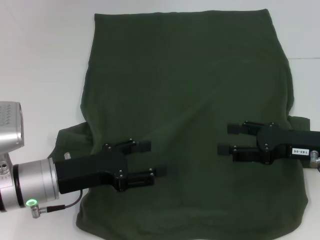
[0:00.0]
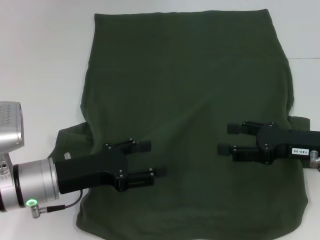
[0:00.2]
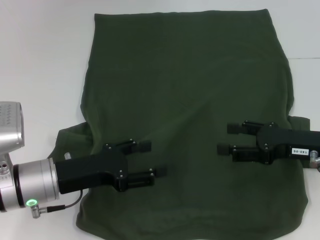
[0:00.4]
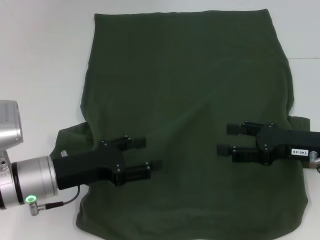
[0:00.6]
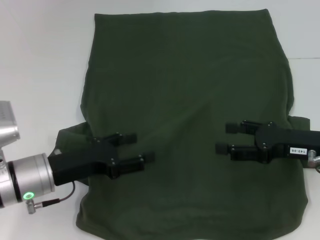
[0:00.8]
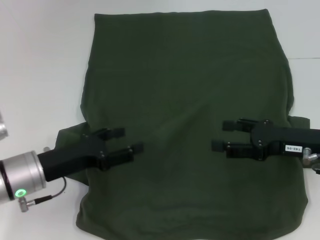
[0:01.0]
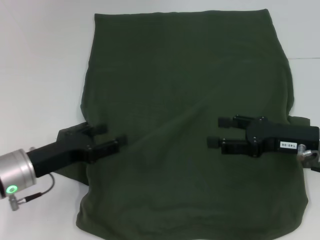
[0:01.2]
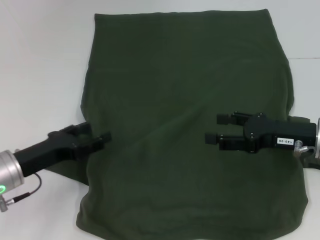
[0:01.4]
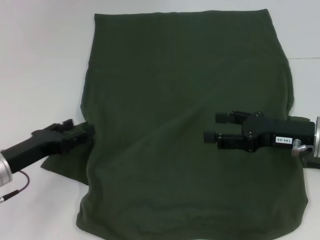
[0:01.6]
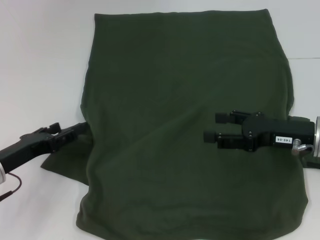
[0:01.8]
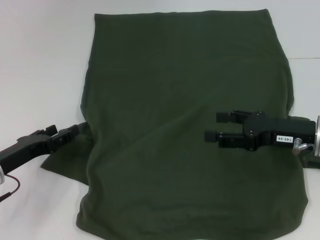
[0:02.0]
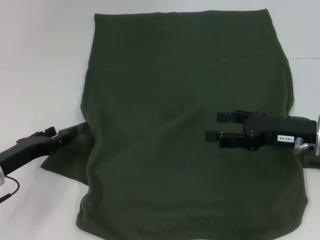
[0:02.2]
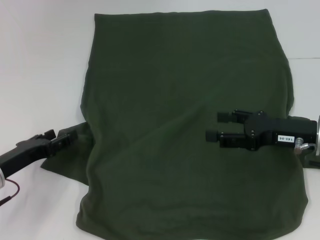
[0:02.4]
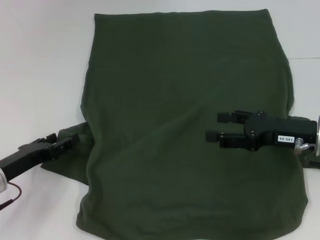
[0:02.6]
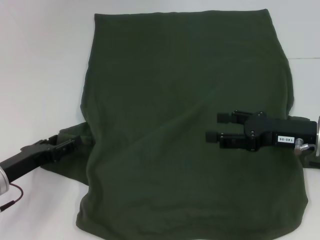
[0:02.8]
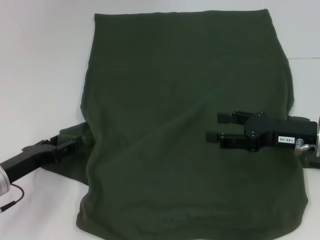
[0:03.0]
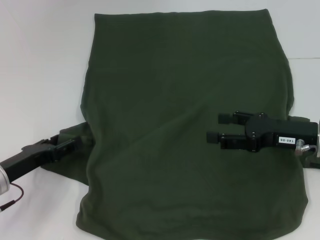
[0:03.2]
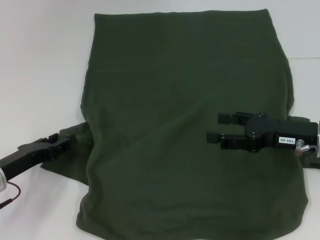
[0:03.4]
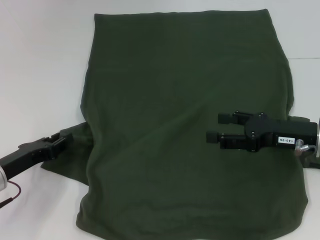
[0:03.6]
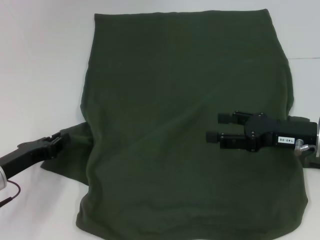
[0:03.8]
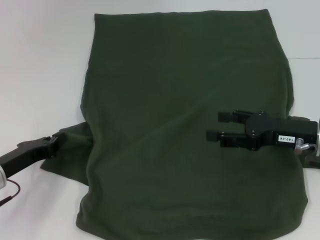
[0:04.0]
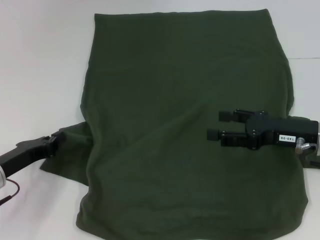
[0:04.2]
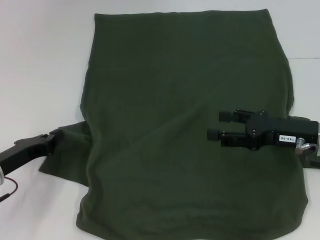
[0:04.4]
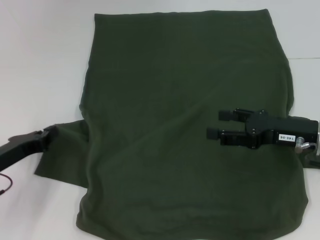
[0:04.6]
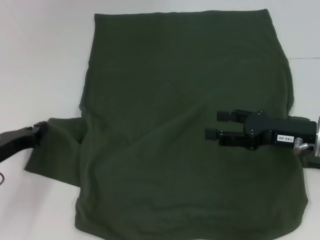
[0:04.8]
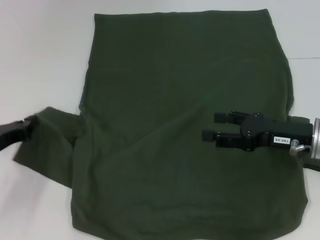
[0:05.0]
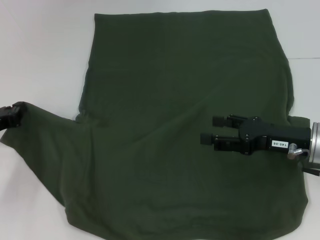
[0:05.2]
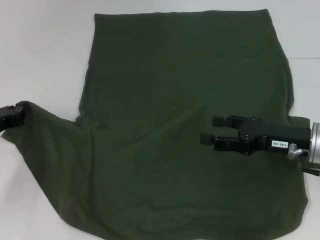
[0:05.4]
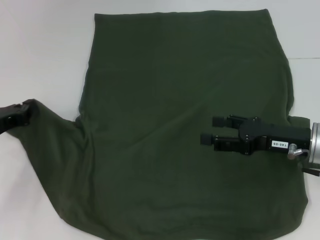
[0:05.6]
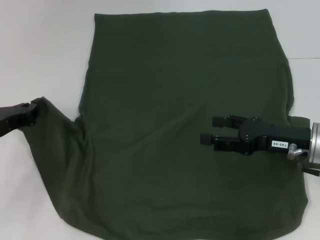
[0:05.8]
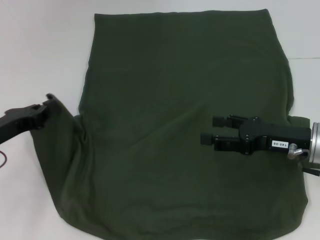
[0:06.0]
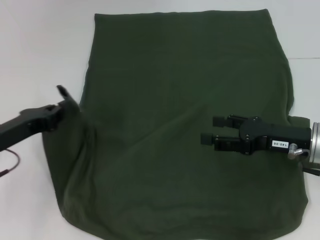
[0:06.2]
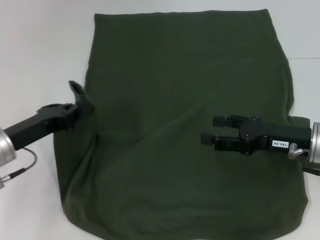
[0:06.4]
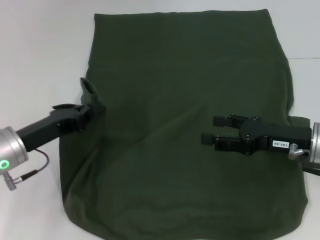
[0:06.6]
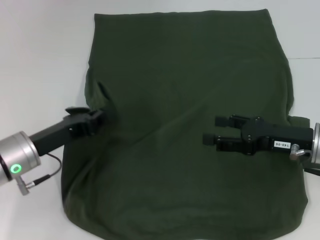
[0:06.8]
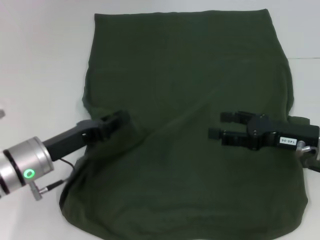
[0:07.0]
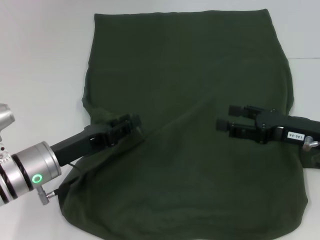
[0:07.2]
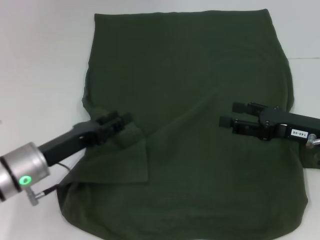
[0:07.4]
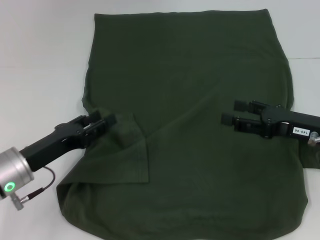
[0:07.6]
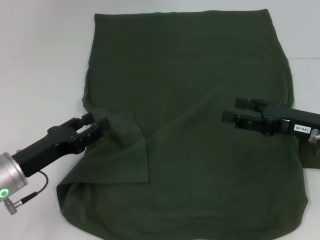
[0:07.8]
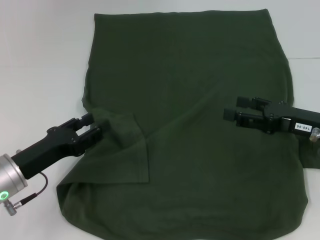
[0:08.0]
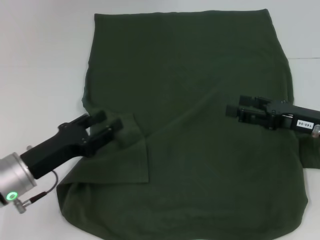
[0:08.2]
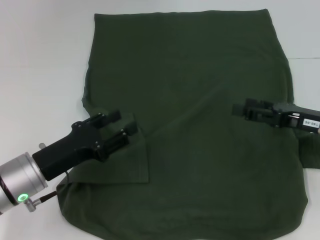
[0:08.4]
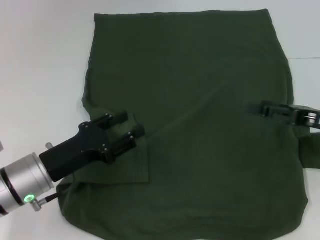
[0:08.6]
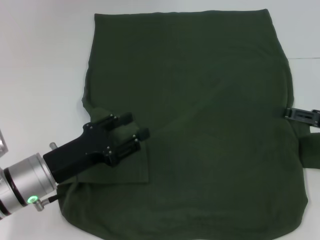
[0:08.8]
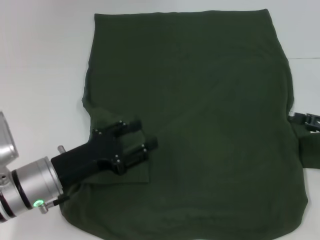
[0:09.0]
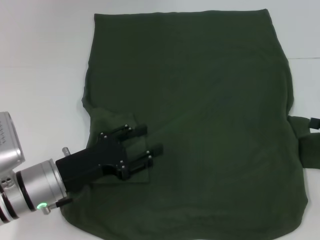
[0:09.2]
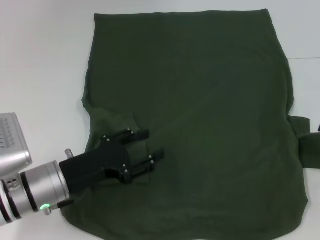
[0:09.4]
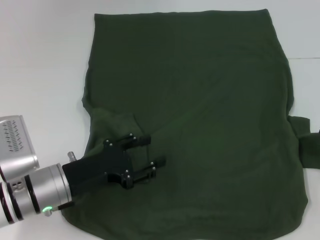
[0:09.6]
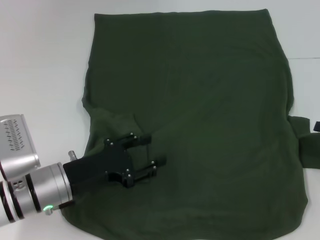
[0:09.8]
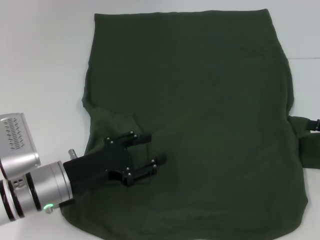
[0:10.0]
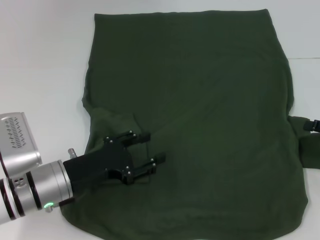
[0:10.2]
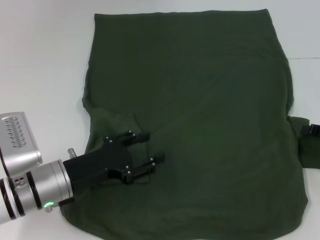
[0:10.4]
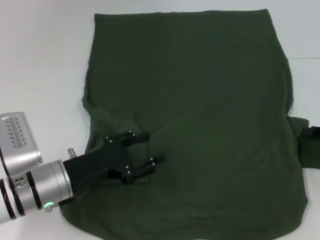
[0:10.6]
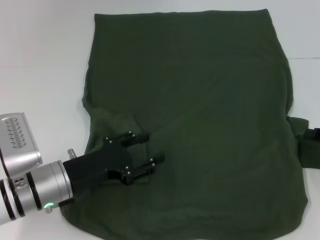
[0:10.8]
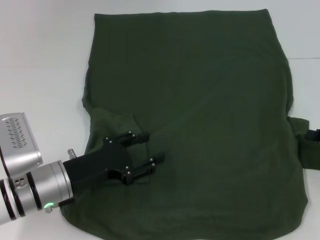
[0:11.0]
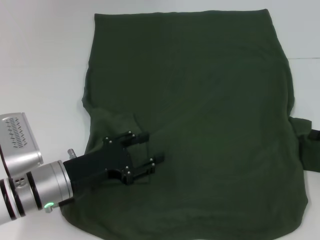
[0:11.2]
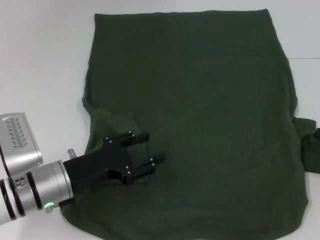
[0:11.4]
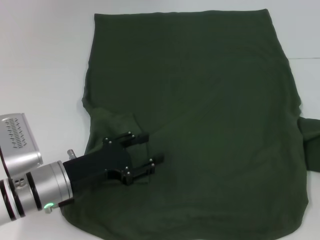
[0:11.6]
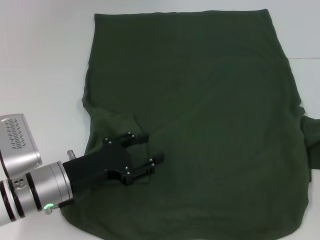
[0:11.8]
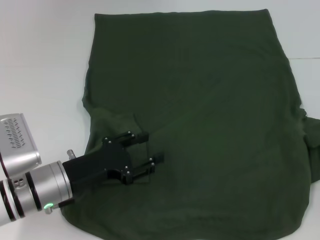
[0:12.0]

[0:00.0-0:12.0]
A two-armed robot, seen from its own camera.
Step, 0:00.0 to 0:07.2: Fold the bottom left sleeve with your left hand.
0:00.0 to 0:01.6: The left gripper heads to the left, covering approximately 5 cm.
0:01.6 to 0:03.0: The grippers make only small movements.
0:03.0 to 0:04.4: The left gripper closes its fingers.
0:04.4 to 0:06.0: The grippers make only small movements.
0:06.0 to 0:07.6: The left gripper is displaced to the right by roughly 5 cm, and opens its fingers.
0:07.6 to 0:09.0: The right gripper heads to the right, covering approximately 10 cm.
0:09.0 to 0:10.4: The grippers stay close to where they were, moving slightly.
0:10.4 to 0:12.0: The right gripper changes place by about 5 cm, and closes its fingers.

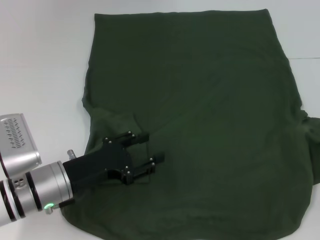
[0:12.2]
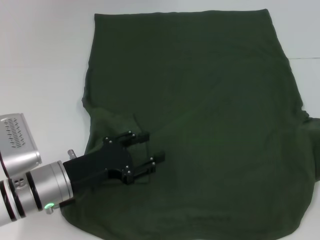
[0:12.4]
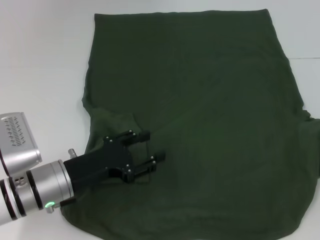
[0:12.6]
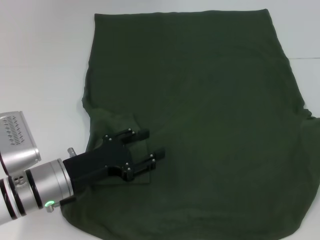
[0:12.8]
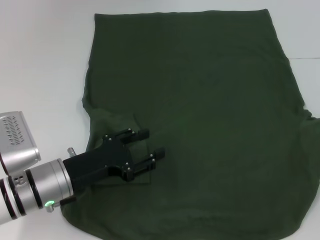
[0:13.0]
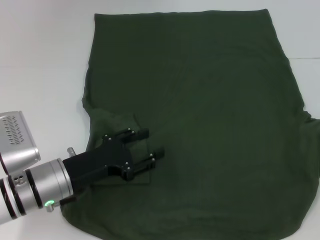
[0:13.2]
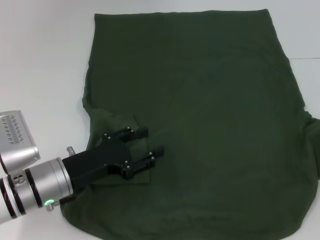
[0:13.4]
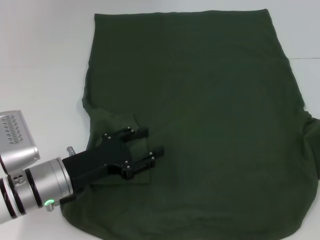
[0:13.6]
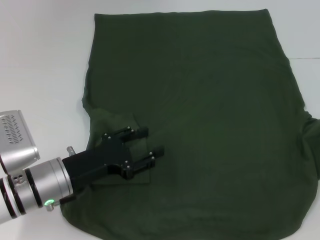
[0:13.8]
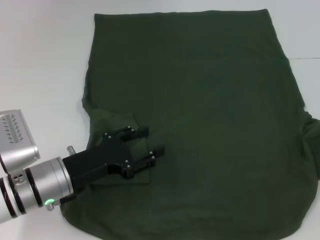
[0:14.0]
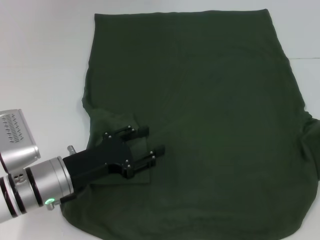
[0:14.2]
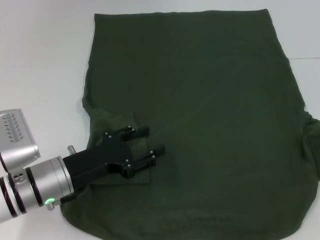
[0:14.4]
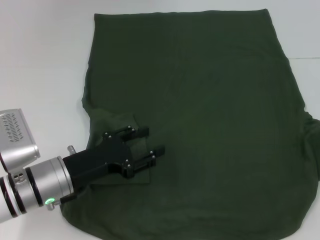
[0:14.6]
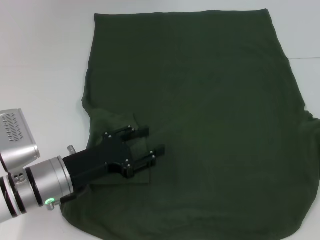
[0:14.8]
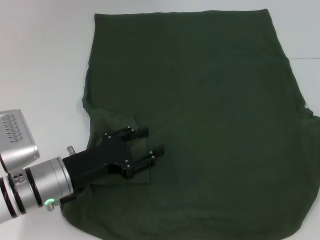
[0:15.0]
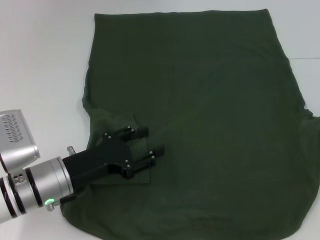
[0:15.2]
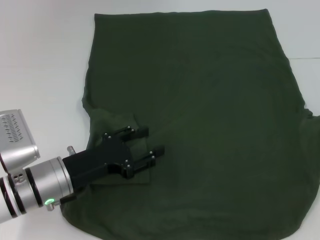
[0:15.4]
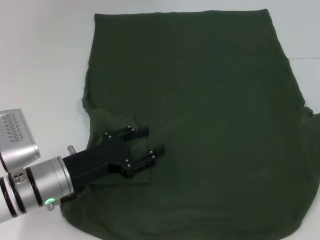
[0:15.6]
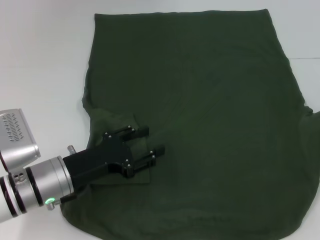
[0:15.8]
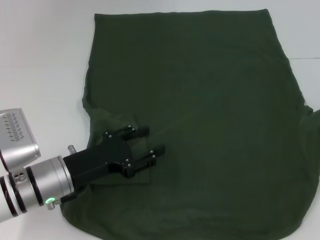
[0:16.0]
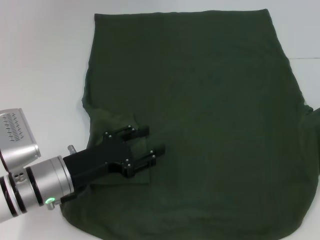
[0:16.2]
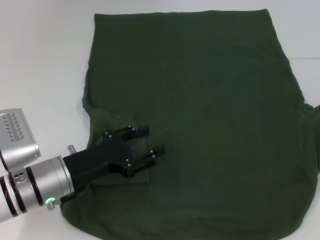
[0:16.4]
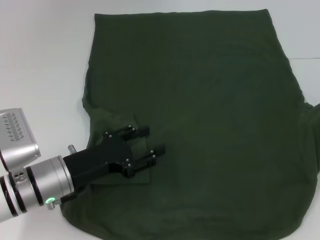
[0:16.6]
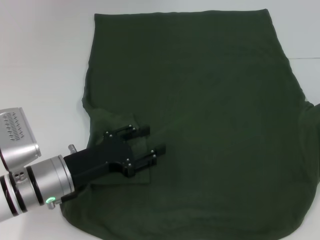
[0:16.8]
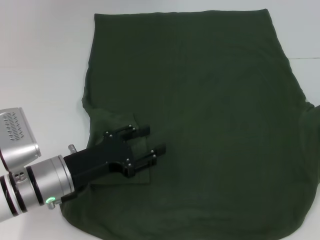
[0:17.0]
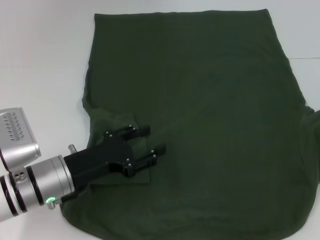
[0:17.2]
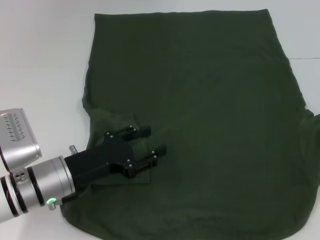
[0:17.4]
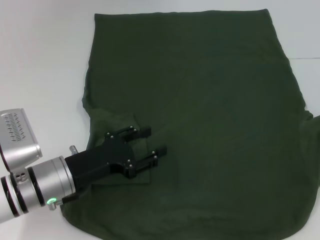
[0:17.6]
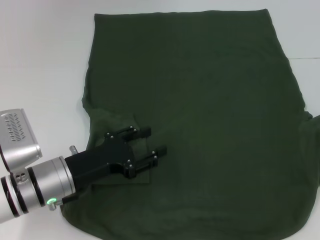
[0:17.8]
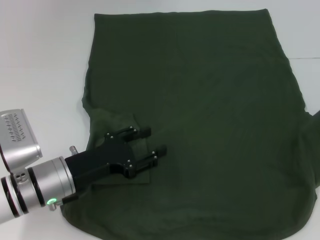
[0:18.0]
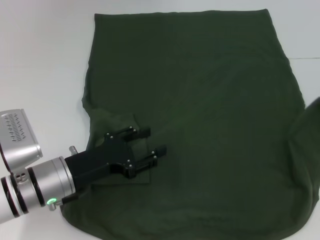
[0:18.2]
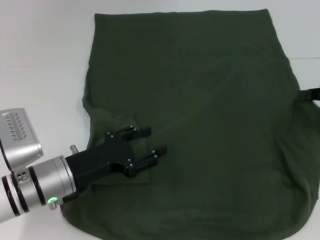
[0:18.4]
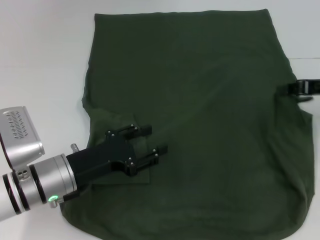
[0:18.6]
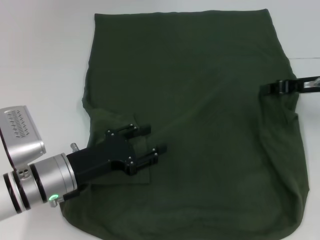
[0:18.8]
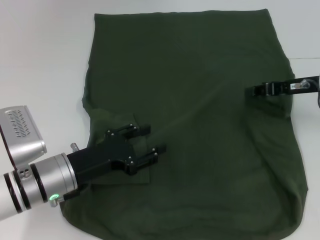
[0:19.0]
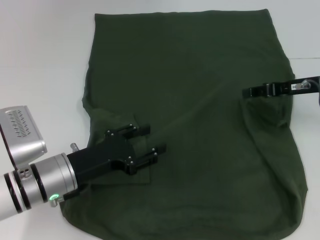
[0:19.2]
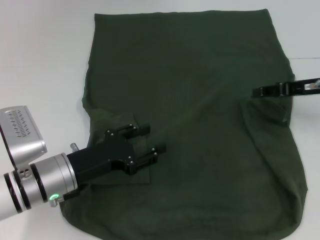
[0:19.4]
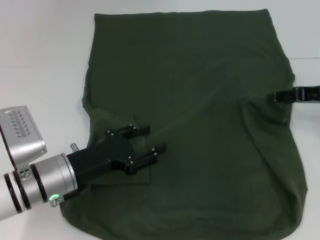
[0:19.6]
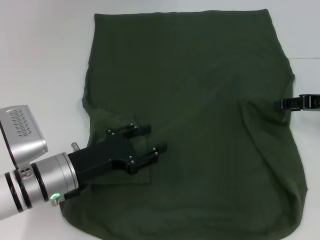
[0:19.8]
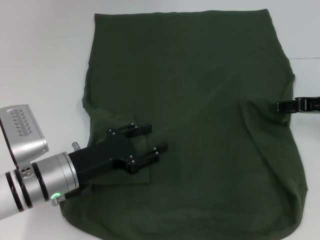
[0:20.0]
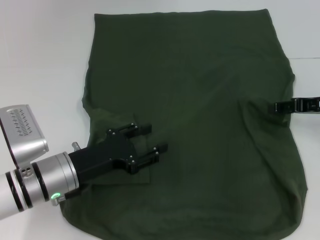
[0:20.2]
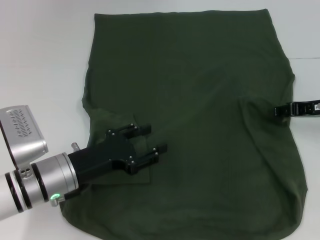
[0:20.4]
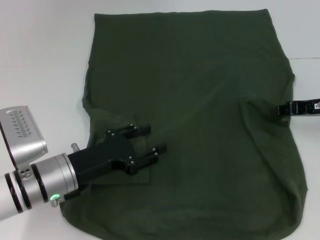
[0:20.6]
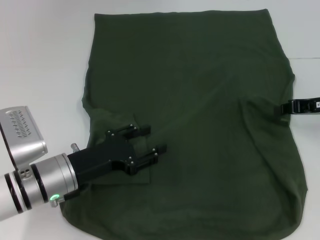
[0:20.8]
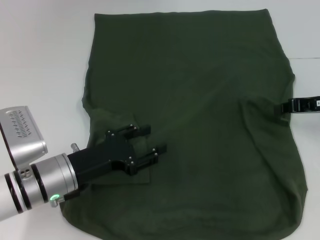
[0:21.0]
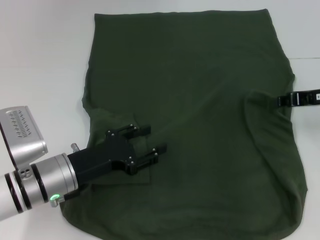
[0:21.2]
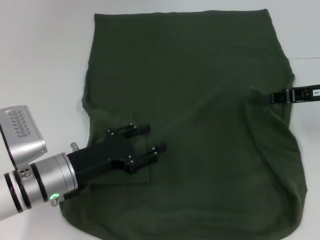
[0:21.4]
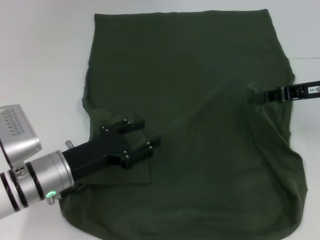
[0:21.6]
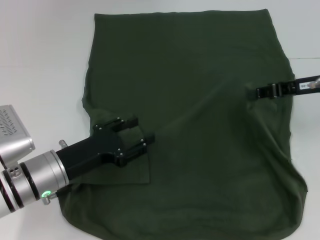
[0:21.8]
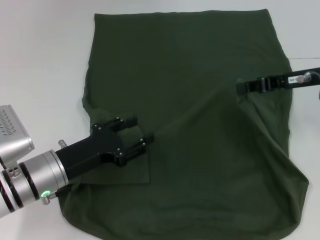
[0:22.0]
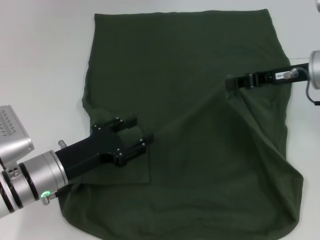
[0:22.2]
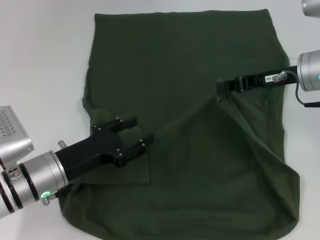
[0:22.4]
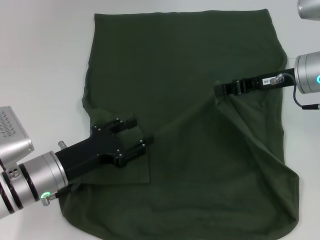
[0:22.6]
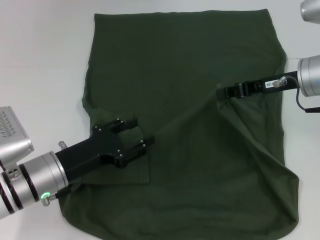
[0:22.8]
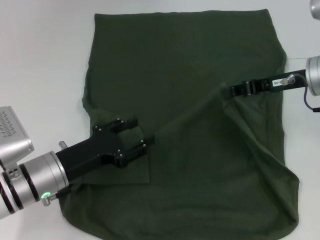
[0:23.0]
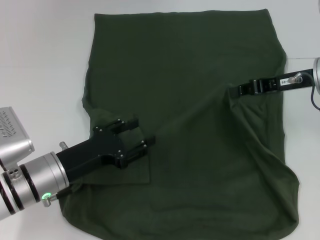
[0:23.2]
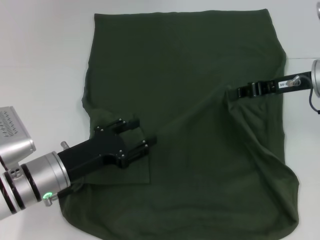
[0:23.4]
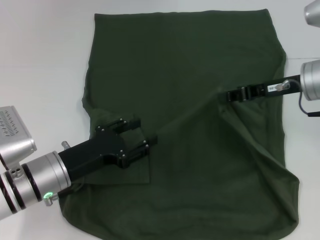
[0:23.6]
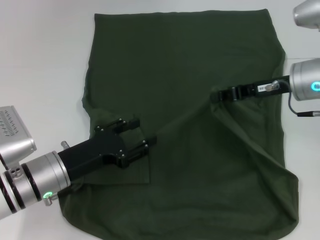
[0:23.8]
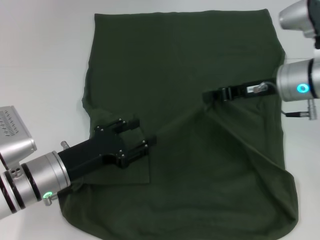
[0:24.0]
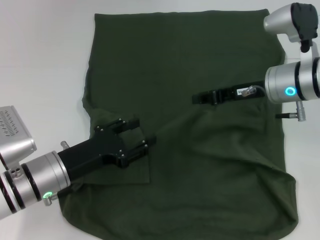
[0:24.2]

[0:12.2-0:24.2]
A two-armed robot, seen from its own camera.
0:12.2 to 0:15.2: The grippers move only a little.
0:15.2 to 0:16.6: There are only small adjustments of the grippers.
0:16.6 to 0:18.2: There are only small adjustments of the grippers.
0:18.2 to 0:19.8: The right gripper moves to the left, about 5 cm, and opens.
0:19.8 to 0:21.2: The right gripper closes.
0:21.2 to 0:22.6: The right gripper shifts about 10 cm to the left.
0:22.6 to 0:24.2: The grippers make only small movements.
